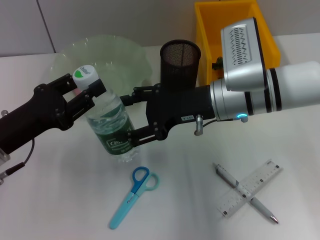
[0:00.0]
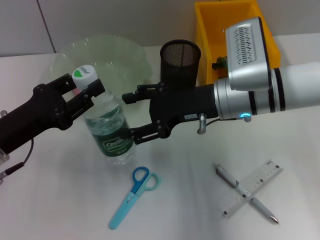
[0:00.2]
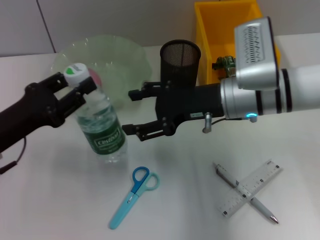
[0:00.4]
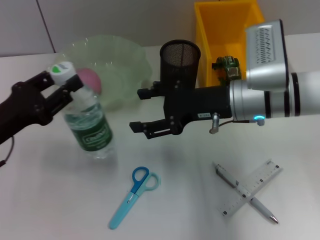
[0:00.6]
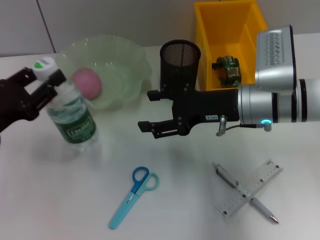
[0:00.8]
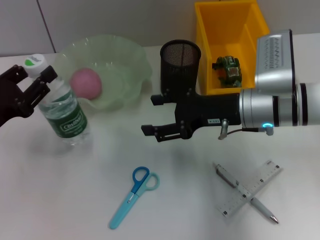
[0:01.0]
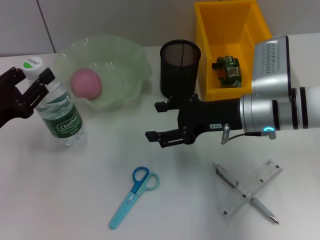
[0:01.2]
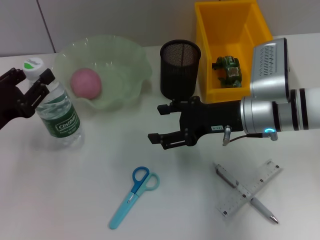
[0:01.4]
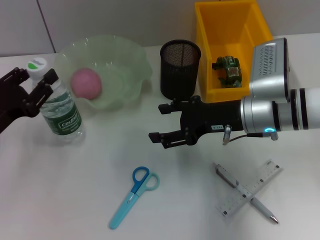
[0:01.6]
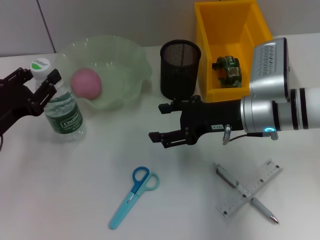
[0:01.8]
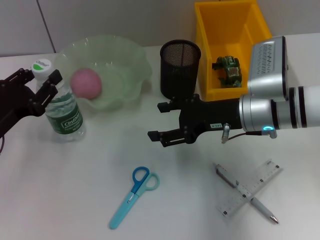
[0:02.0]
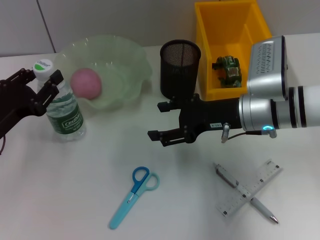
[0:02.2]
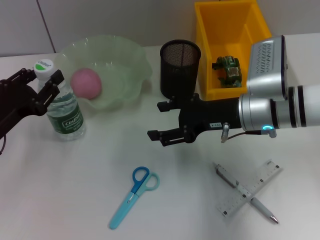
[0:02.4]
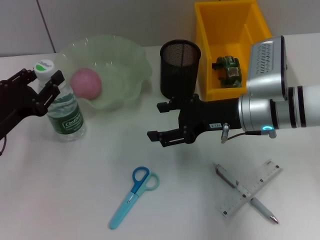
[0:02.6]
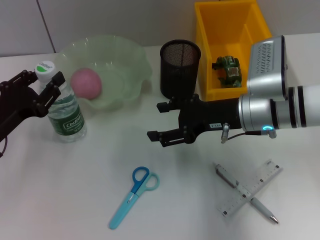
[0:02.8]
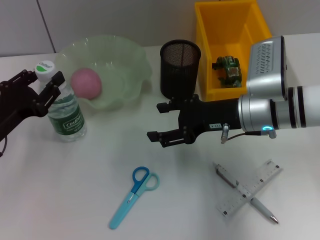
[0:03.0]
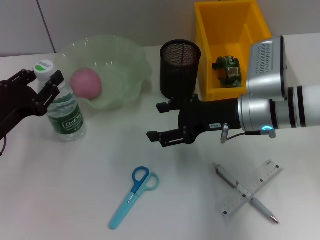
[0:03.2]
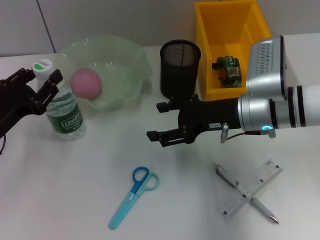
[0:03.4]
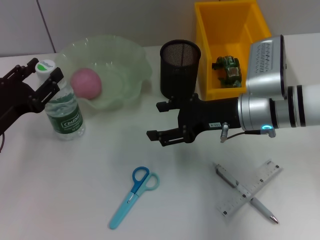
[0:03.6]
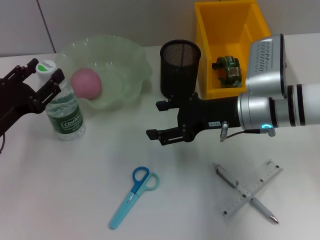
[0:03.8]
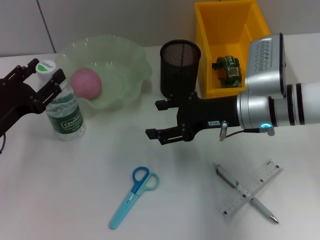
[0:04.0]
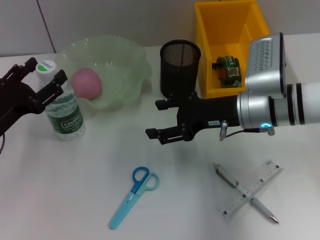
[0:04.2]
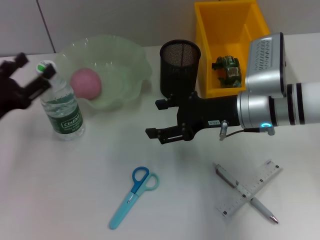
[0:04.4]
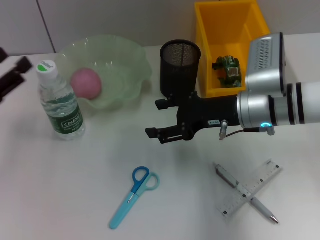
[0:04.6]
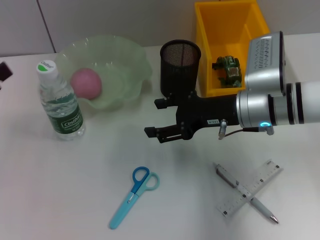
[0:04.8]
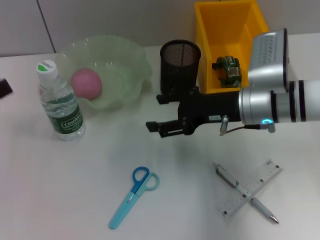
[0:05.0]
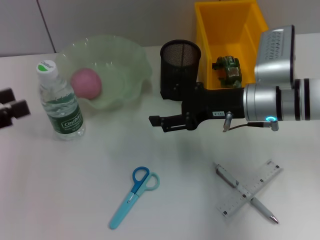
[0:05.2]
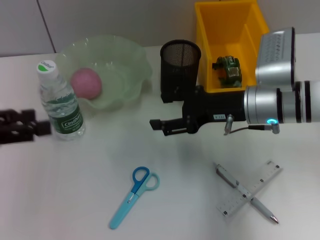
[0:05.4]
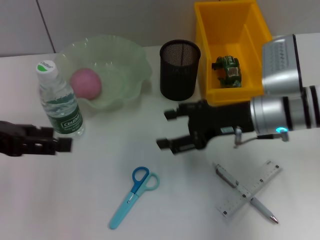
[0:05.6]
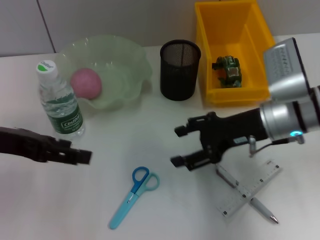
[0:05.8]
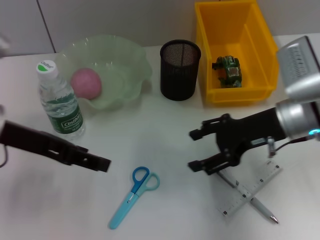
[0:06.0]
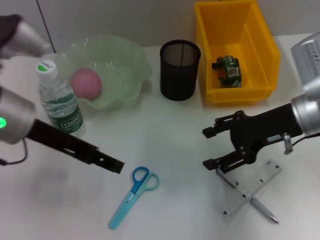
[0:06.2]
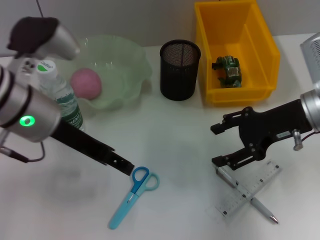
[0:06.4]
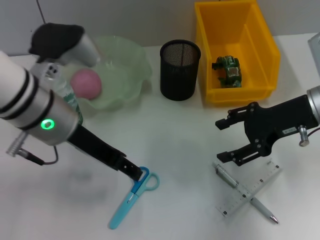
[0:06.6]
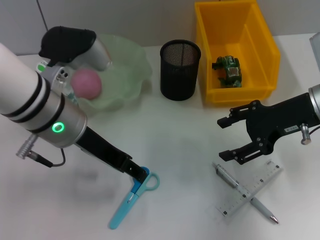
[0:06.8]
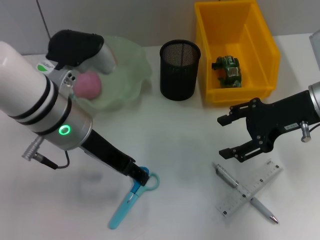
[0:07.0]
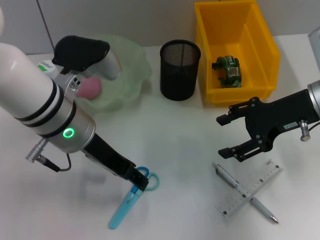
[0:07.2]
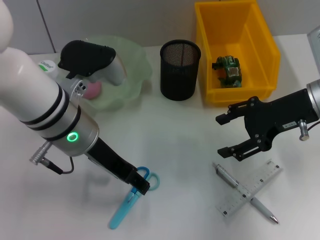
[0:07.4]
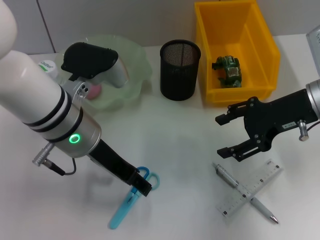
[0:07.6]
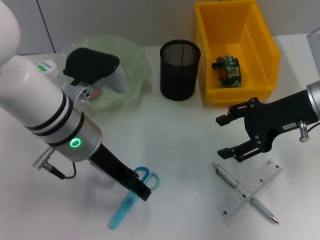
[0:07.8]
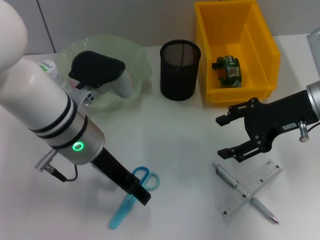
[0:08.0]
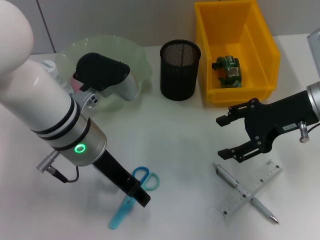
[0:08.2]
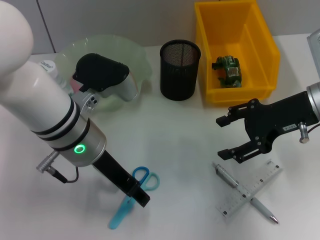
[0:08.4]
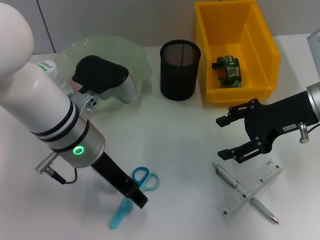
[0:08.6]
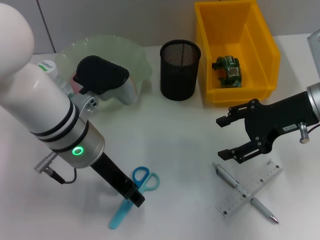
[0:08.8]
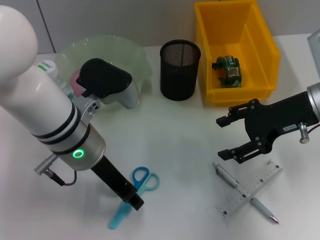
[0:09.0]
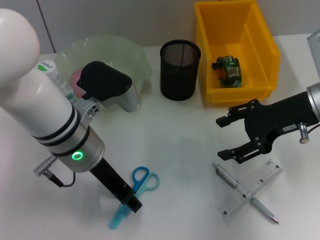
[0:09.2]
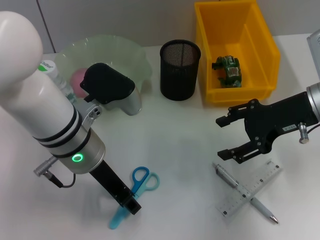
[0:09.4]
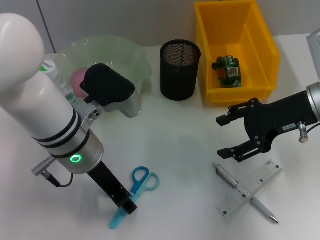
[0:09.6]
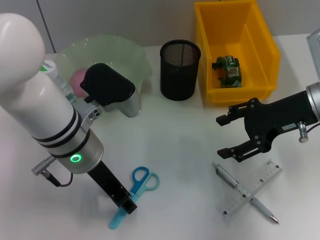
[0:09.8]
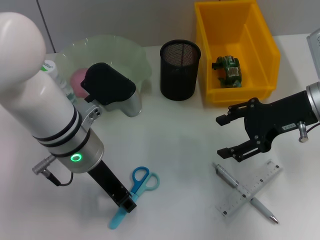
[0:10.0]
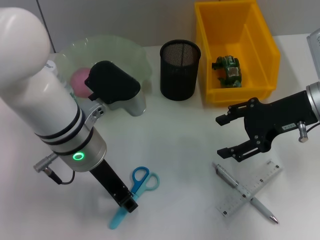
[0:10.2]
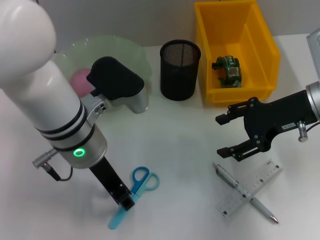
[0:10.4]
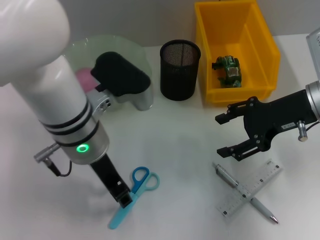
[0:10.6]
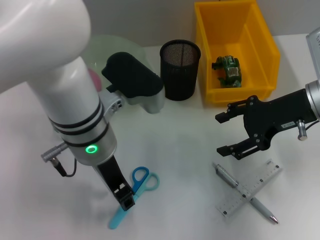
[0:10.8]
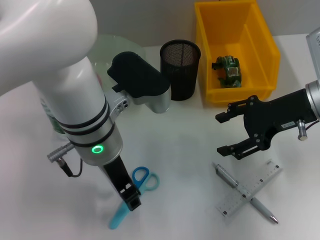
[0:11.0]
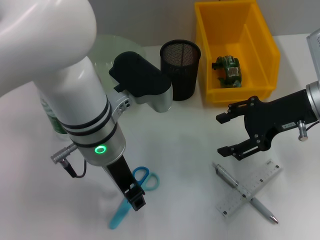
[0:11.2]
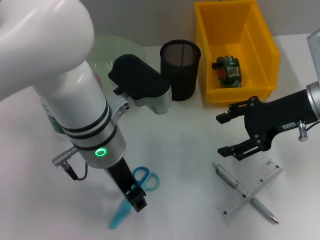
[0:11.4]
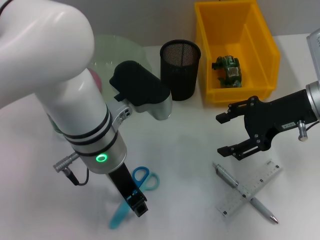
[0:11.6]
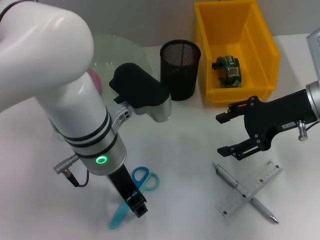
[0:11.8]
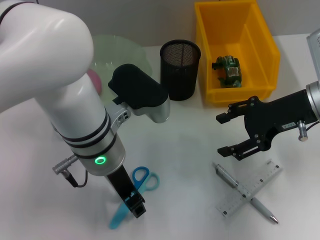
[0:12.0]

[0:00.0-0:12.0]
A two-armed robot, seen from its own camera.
Step, 0:00.6 to 0:04.2: Place the water bottle on the table with the left hand.
0:00.0 to 0:01.6: The right gripper shifts by some 5 cm.
0:01.6 to 0:03.0: The grippers make only small movements.
0:03.0 to 0:04.4: The left gripper opens.
0:04.4 to 0:06.0: The left gripper heads upward and to the right, covering approximately 15 cm. The right gripper moves about 5 cm.
0:06.0 to 0:07.6: The left gripper goes roughly 10 cm to the right.
0:07.6 to 0:09.0: The left gripper closes its fingers.
0:09.0 to 0:10.4: The grippers stay close to where they were, moving slightly.

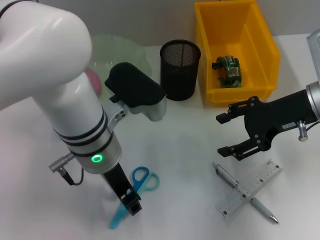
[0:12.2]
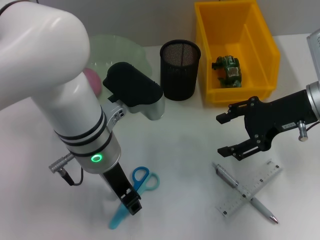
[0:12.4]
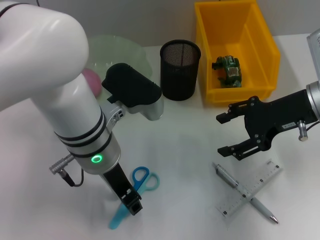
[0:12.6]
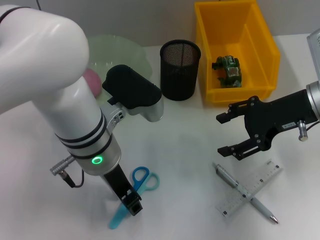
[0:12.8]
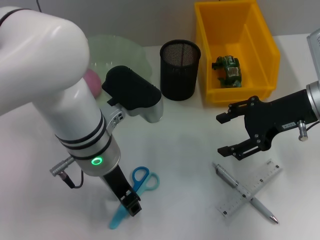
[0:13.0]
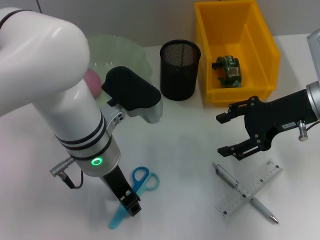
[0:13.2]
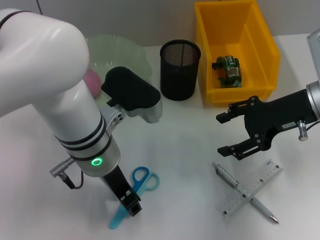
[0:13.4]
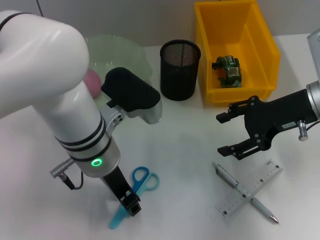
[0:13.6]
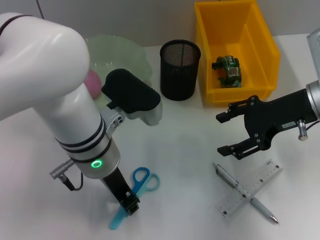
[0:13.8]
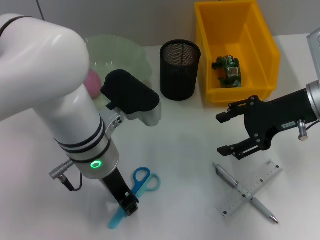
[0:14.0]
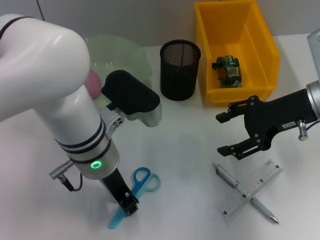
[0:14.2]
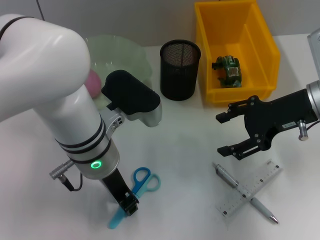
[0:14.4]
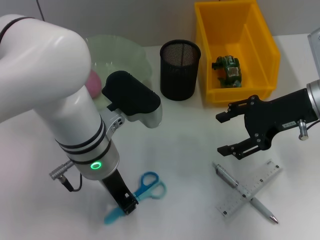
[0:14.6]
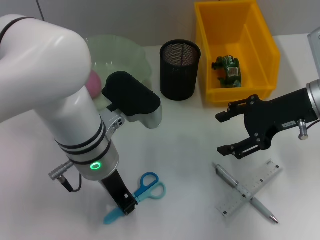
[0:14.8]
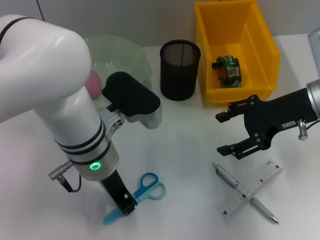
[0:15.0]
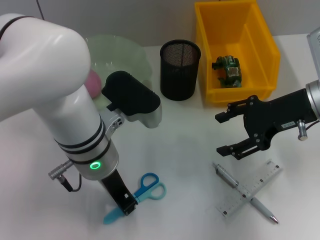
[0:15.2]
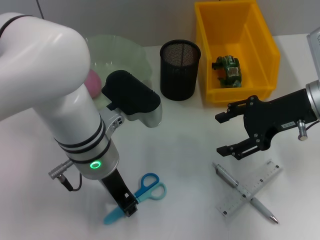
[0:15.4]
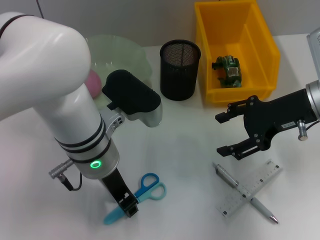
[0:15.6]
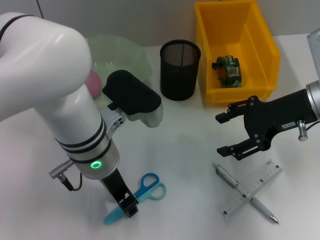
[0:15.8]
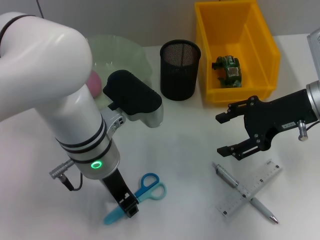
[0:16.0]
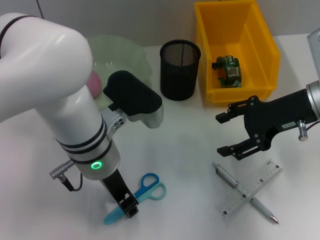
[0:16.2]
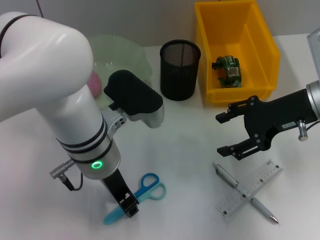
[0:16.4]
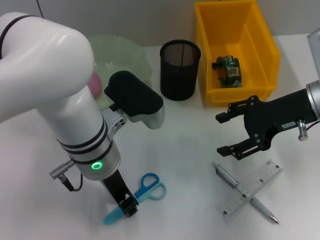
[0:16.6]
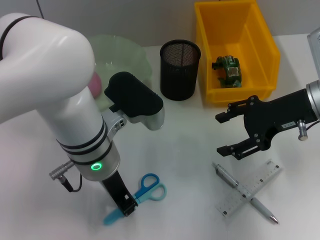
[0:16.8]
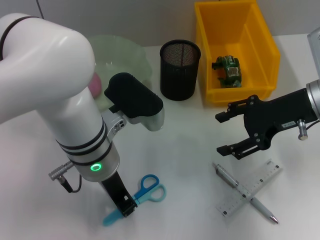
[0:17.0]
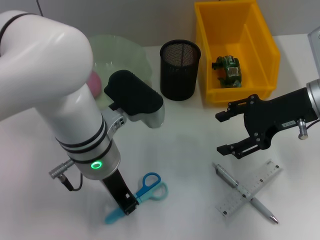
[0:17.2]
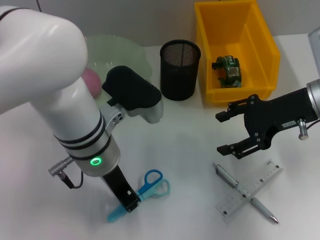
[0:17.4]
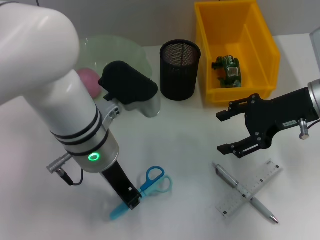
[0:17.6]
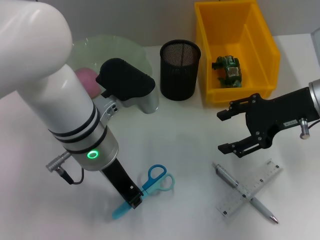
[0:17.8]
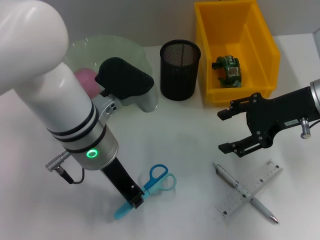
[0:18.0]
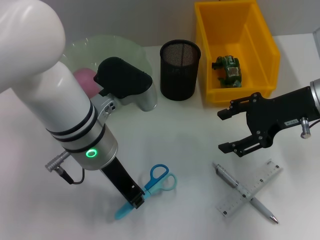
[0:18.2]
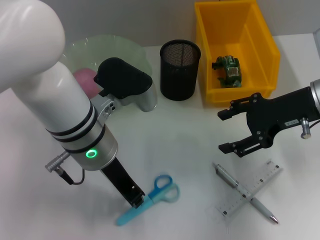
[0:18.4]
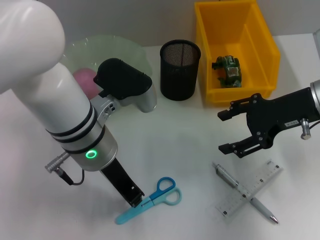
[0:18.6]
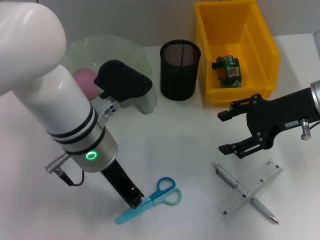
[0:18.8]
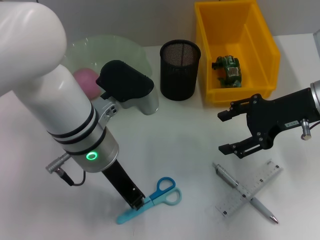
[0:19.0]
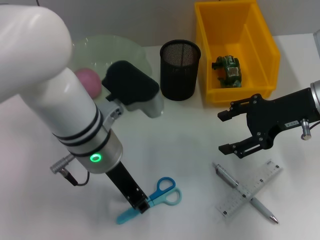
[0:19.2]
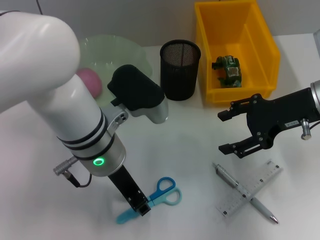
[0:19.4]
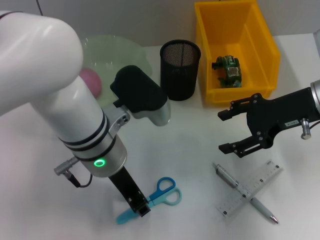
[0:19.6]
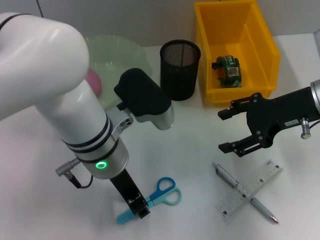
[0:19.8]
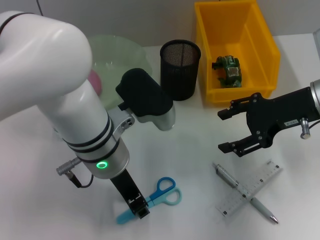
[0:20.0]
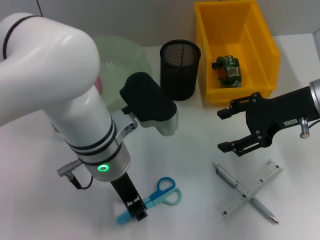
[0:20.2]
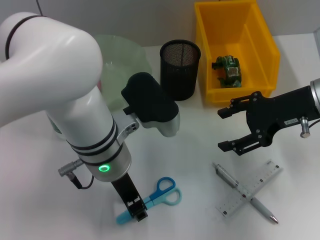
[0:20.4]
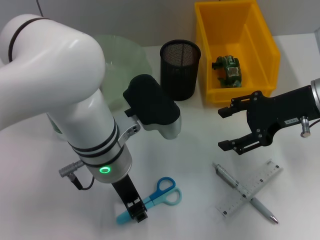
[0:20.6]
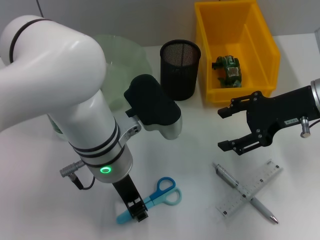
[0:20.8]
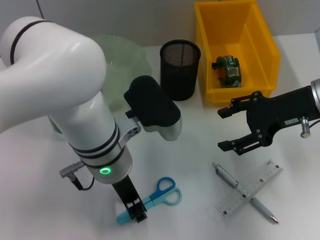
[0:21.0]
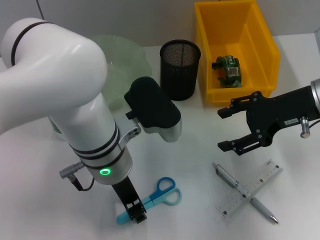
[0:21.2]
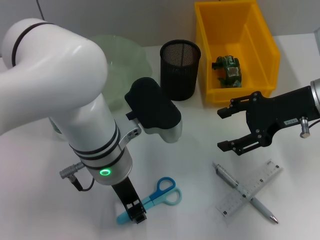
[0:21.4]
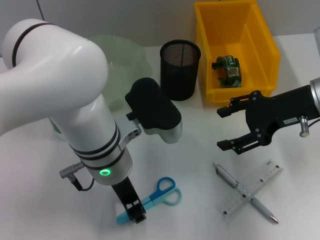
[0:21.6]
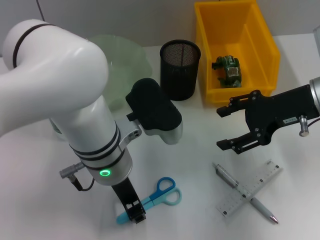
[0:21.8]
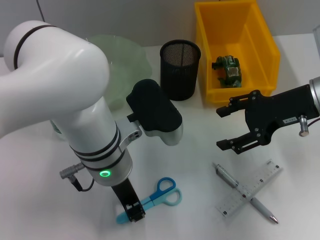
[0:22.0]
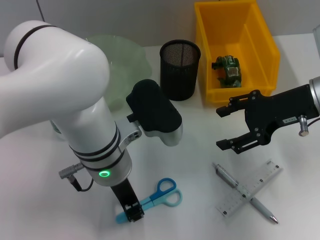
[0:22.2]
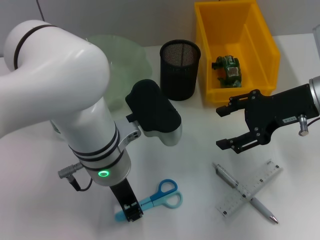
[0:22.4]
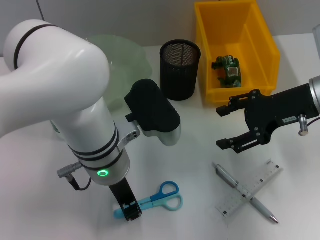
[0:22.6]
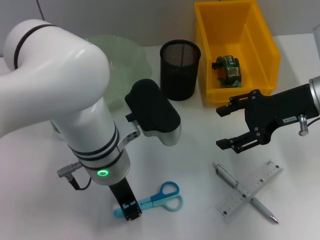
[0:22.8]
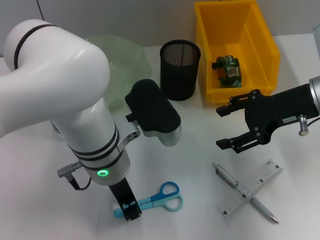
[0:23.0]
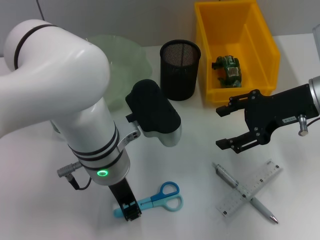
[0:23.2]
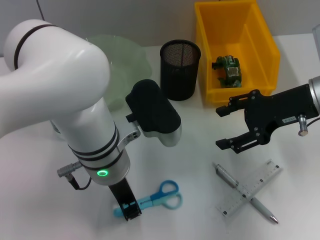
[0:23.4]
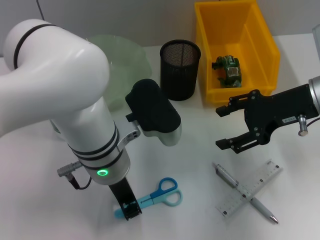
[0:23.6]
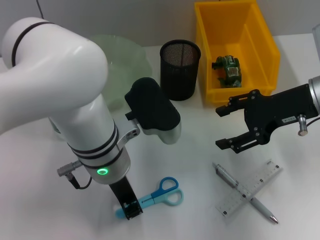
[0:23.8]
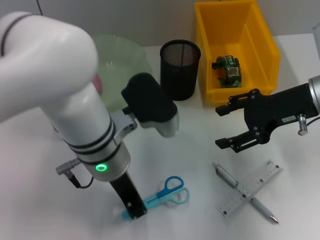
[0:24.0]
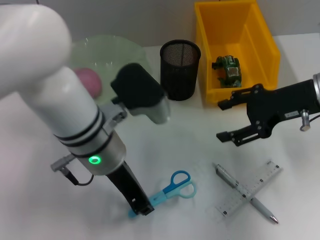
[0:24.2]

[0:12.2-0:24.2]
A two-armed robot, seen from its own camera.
Step, 0:12.2 to 0:23.4: Grab the blue scissors with the left hand.
0:12.2 to 0:13.8: The two grippers keep their place.
0:13.8 to 0:16.6: Both grippers stay put.
0:18.2 to 0:21.2: The grippers stay close to where they were, moving slightly.
0:21.2 to 0:22.6: Both grippers stay put.
